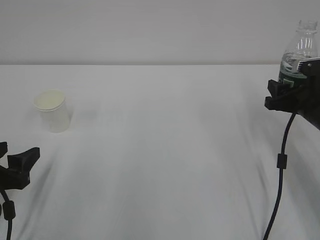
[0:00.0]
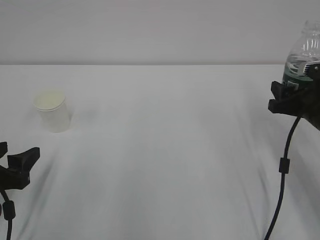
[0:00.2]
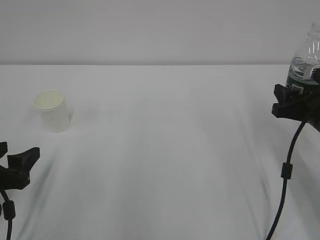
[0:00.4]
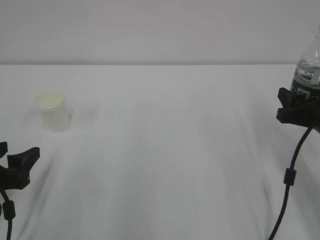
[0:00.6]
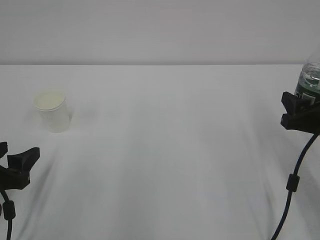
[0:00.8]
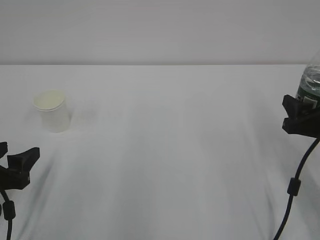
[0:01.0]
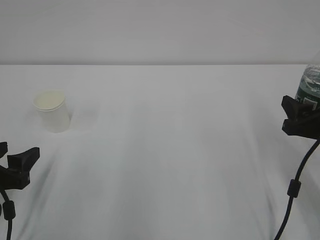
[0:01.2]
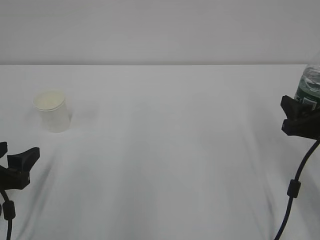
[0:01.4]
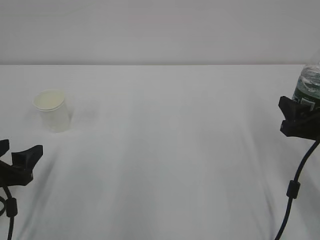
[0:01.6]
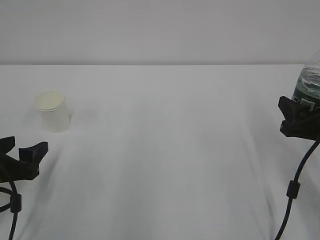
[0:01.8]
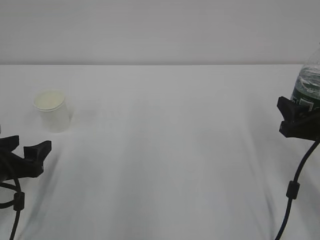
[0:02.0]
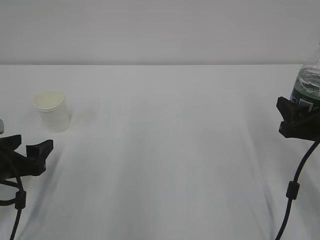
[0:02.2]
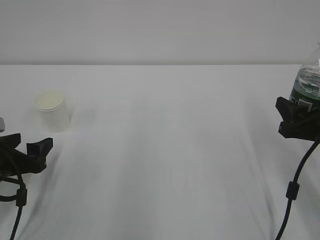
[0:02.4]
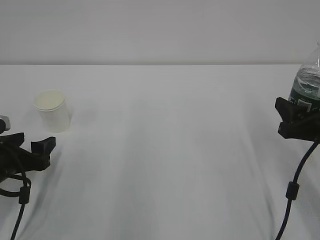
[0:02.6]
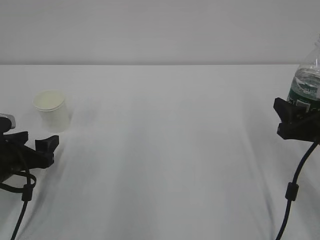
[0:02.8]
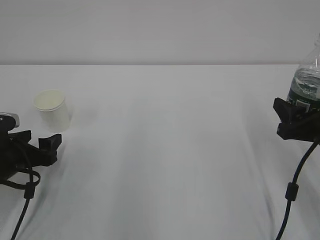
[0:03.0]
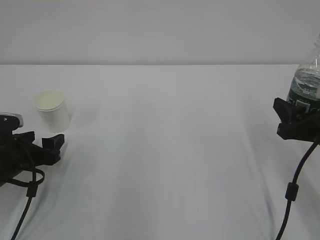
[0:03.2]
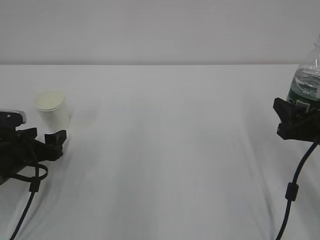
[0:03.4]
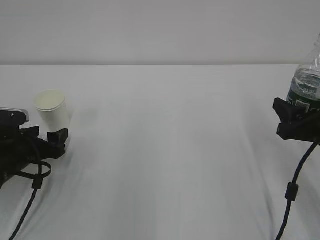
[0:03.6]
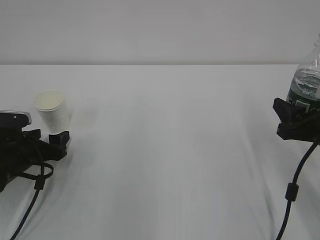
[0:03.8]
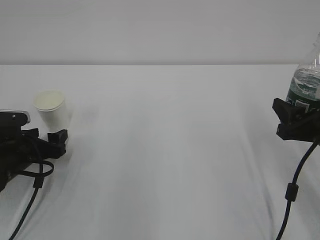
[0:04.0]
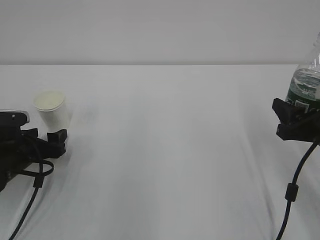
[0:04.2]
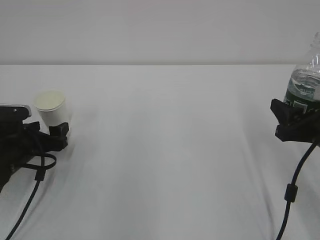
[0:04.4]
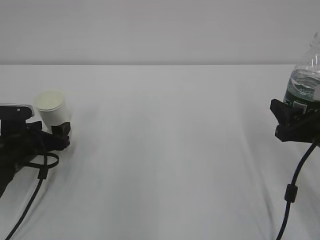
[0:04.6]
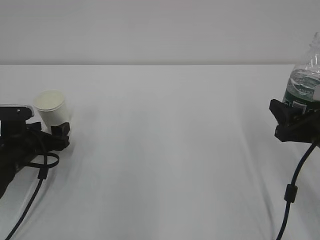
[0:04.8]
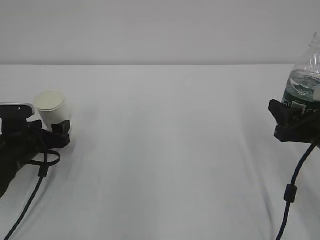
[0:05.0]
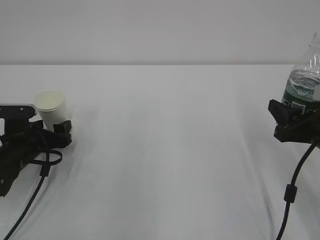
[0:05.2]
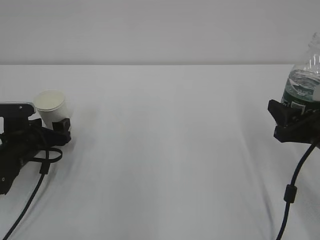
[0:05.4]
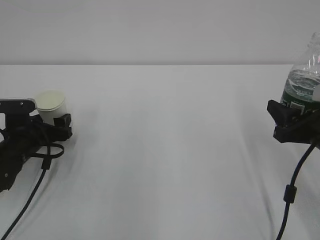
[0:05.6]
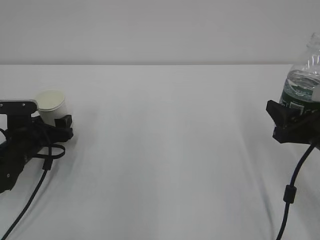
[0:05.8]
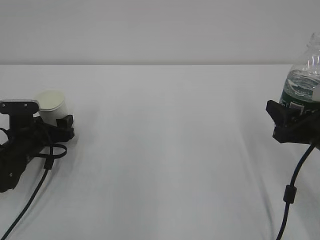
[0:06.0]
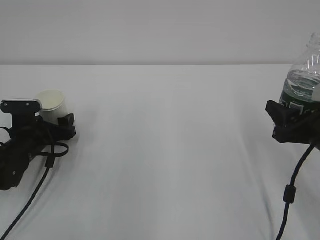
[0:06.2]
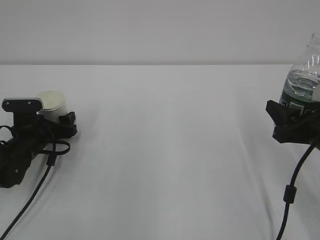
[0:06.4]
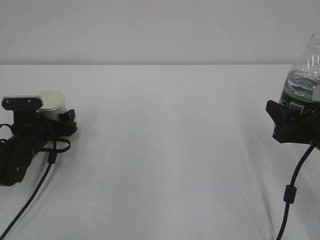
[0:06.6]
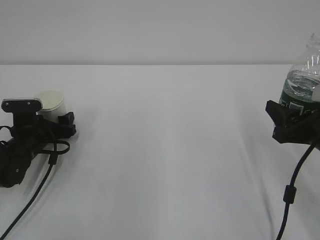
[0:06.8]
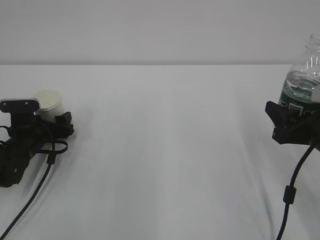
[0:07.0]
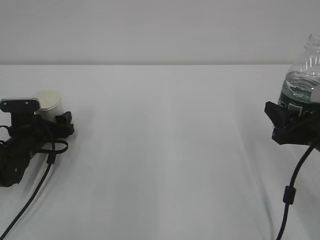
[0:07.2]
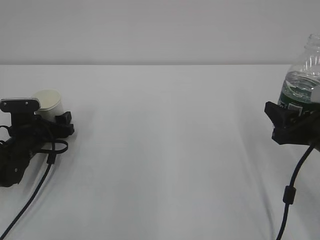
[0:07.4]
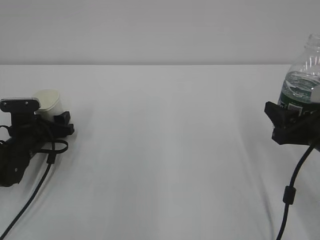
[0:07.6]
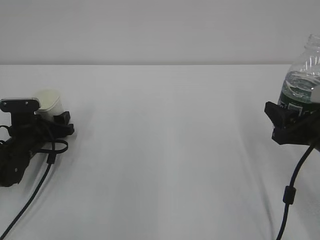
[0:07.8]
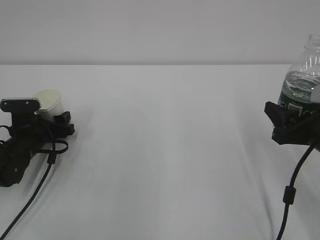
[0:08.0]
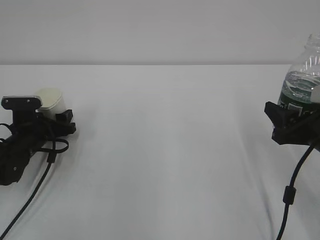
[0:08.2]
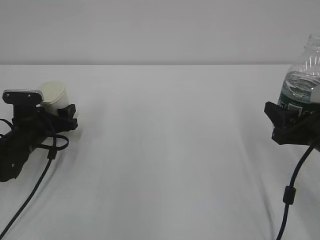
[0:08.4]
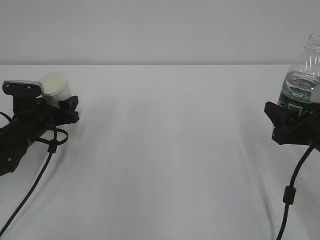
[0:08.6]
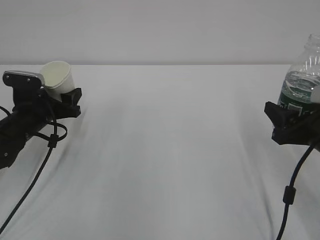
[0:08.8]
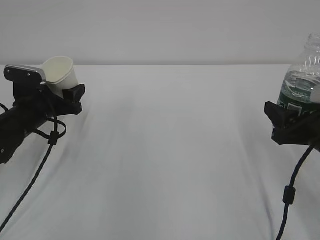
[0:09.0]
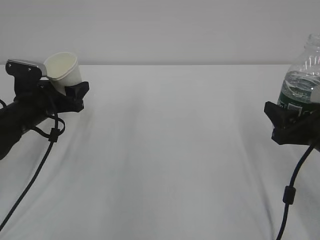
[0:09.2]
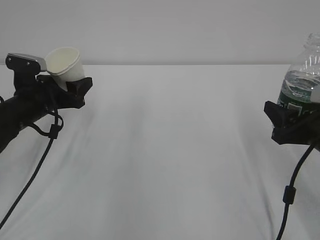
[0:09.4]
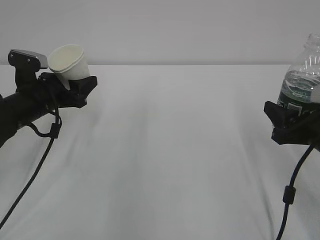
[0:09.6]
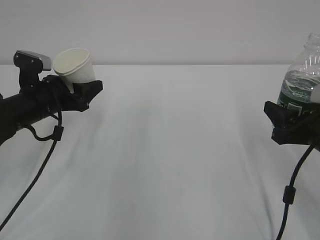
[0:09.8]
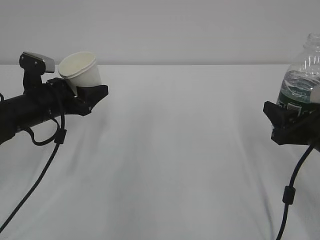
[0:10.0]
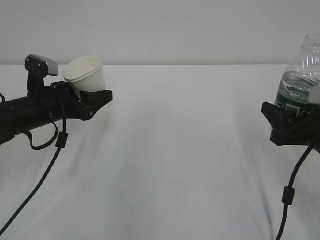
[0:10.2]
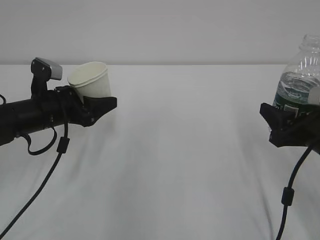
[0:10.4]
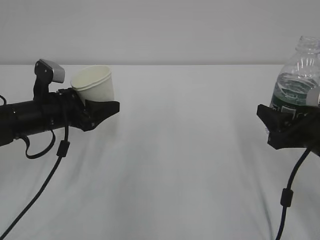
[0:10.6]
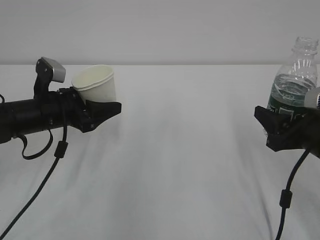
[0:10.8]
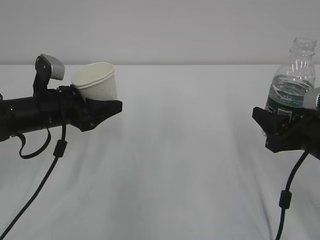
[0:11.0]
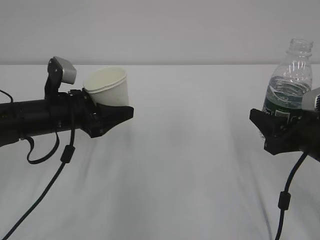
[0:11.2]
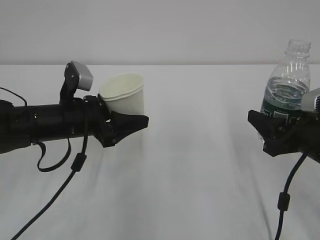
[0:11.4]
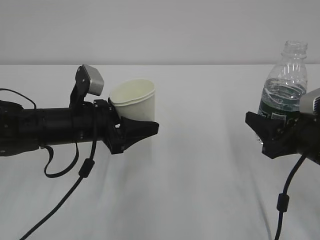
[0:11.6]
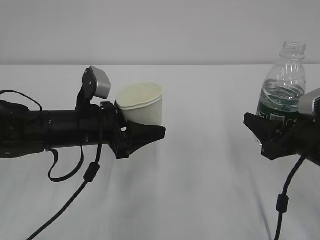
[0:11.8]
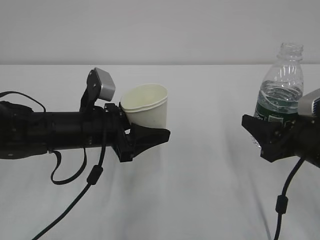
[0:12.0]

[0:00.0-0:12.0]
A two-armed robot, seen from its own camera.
0:00.0 to 0:01.6: The right gripper shifts some 10 cm backward.
0:01.6 to 0:03.0: The left gripper goes some 5 cm forward.
0:03.0 to 0:04.4: The grippers stay close to where they were, moving slightly.
0:04.4 to 0:06.0: The grippers make only small movements.
0:06.0 to 0:07.6: The left gripper closes up.
0:07.6 to 0:09.0: The left gripper is displaced upward by roughly 5 cm.
0:09.0 to 0:10.4: The left gripper changes place by about 5 cm.
0:10.4 to 0:12.0: The left gripper is displaced to the right and backward by some 10 cm.

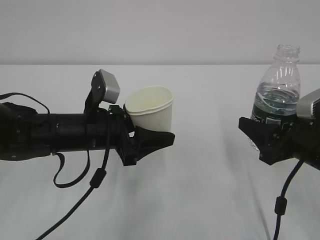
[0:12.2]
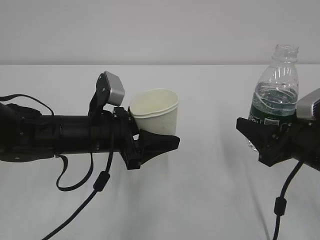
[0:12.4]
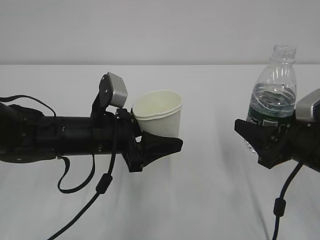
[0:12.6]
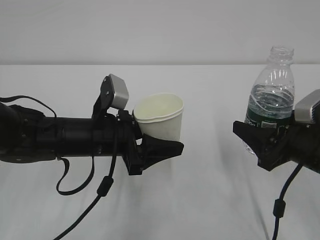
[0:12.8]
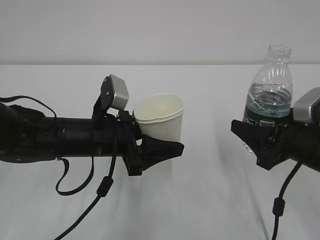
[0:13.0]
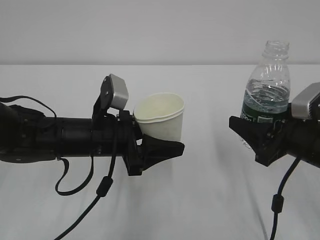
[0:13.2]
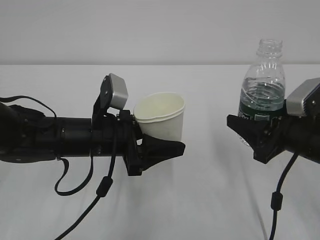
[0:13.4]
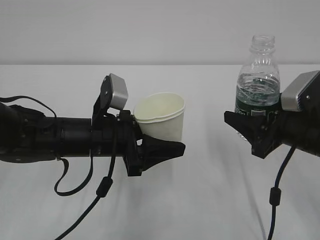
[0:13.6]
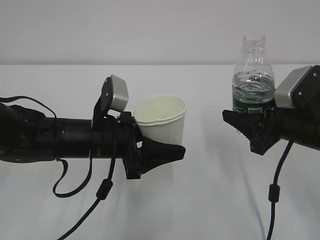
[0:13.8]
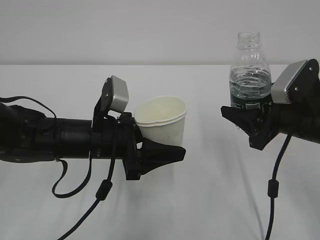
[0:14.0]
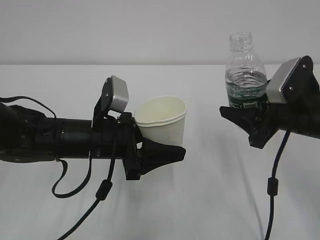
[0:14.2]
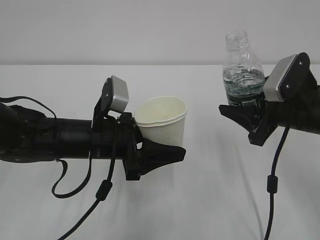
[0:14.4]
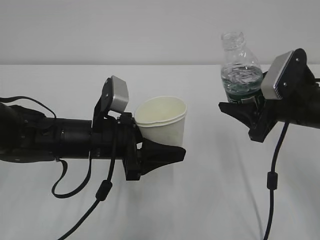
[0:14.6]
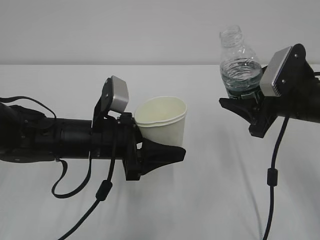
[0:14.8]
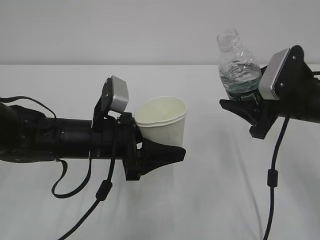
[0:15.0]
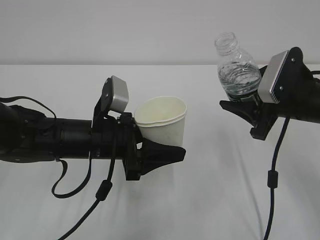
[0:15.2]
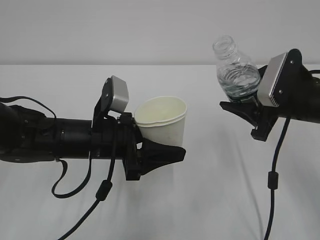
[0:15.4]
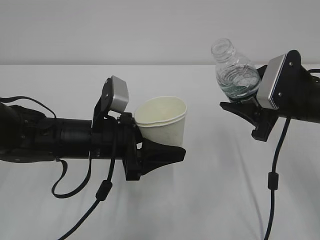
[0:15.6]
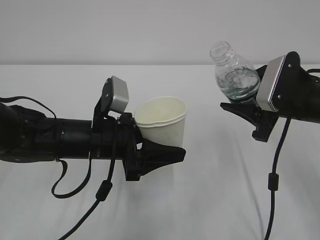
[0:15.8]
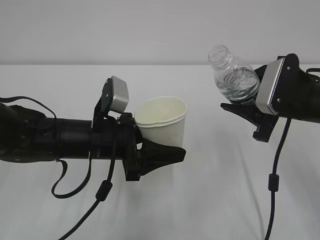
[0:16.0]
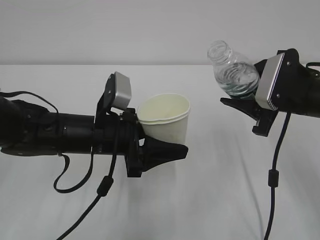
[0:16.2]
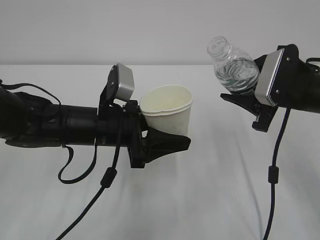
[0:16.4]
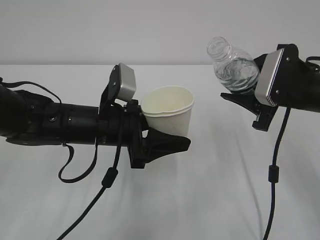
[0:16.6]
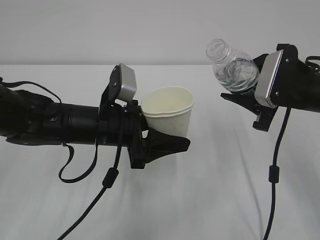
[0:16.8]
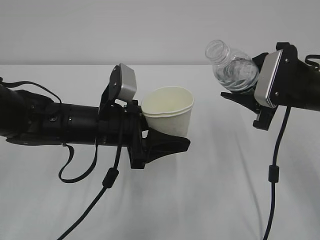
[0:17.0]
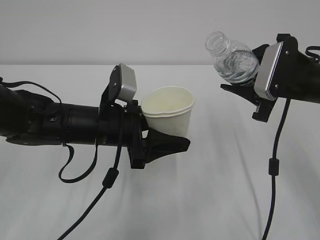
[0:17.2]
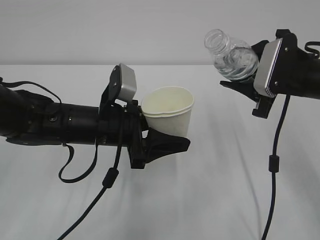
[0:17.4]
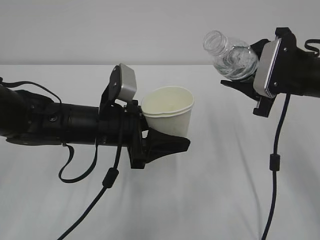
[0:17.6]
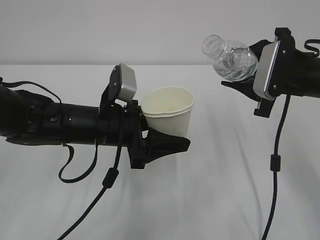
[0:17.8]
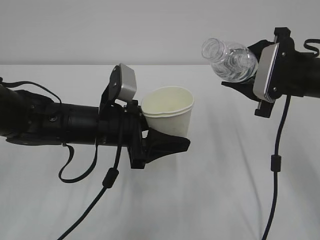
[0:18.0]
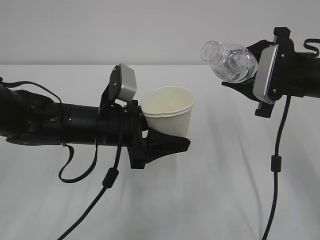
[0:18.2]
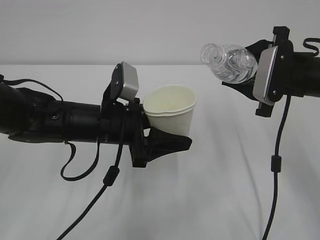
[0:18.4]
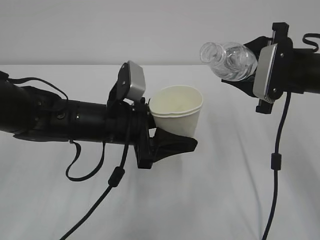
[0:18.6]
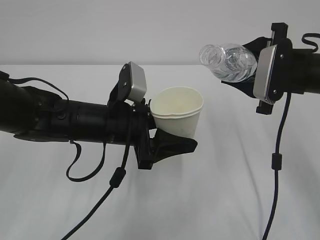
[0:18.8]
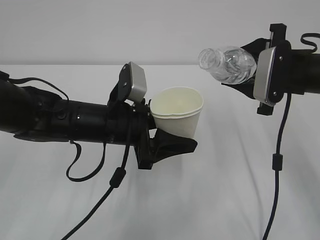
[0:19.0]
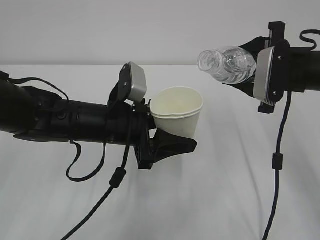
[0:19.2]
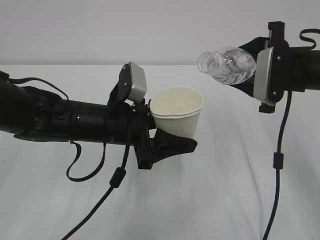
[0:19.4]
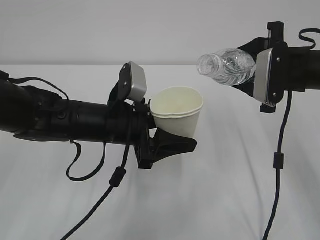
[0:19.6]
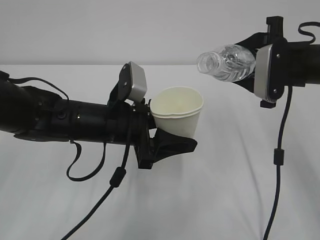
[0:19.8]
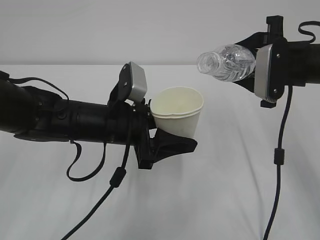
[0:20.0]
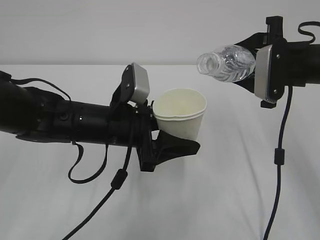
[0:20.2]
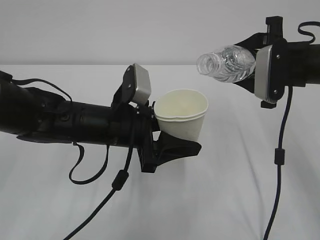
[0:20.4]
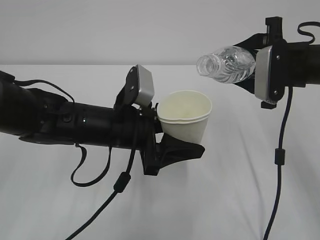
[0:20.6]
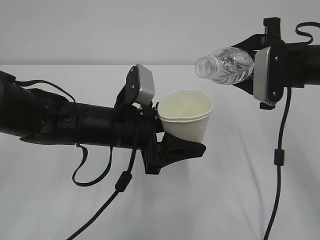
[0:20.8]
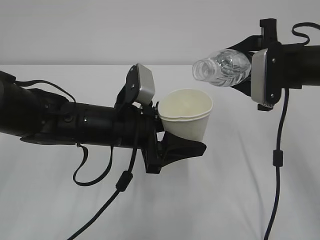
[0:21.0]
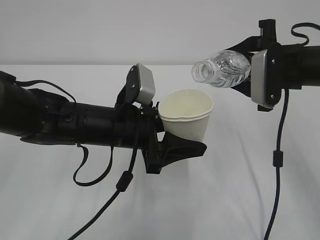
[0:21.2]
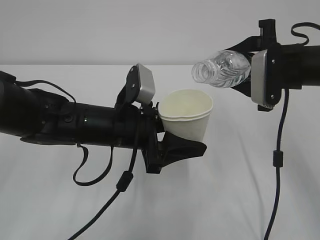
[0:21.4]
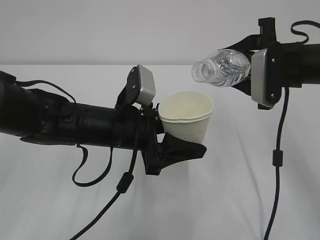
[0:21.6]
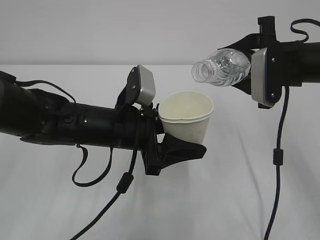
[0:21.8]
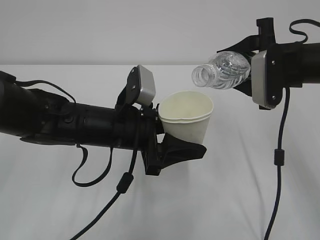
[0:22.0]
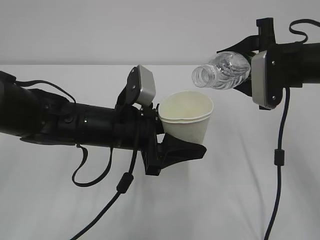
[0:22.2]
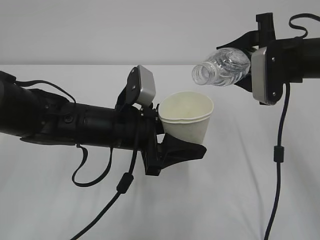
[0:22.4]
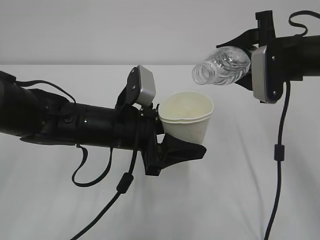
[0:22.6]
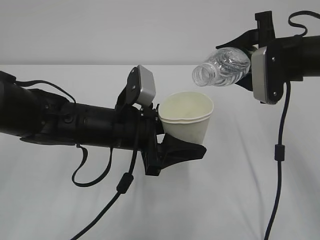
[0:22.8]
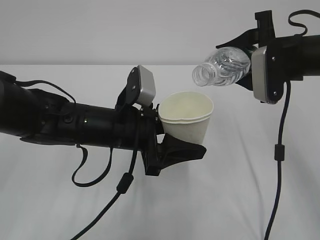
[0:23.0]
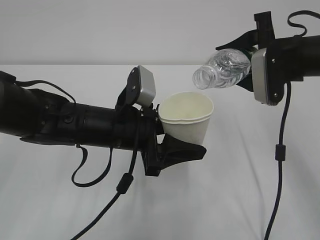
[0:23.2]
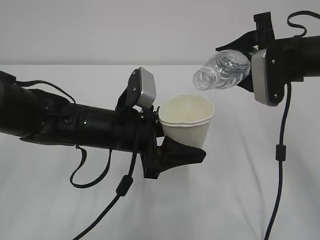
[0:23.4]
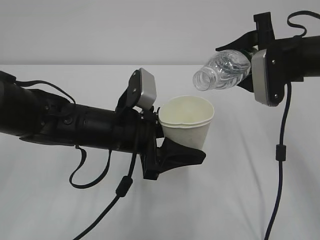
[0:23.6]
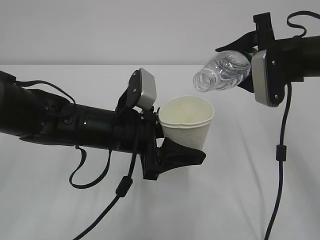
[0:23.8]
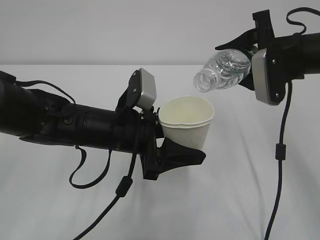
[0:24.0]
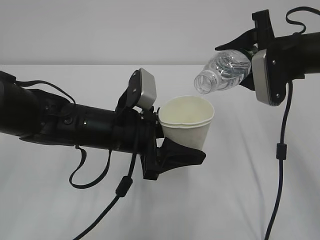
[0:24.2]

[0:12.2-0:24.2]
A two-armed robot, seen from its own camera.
0:12.2 to 0:13.8: The grippers move only a little.
0:15.2 to 0:16.6: The grippers make only small movements.
0:16.6 to 0:18.2: The grippers stay close to where they were, moving slightly.
0:18.2 to 0:19.8: There are only small adjustments of the grippers.
0:19.8 to 0:21.2: The two grippers keep their place.
0:21.2 to 0:24.2: The grippers move only a little.
